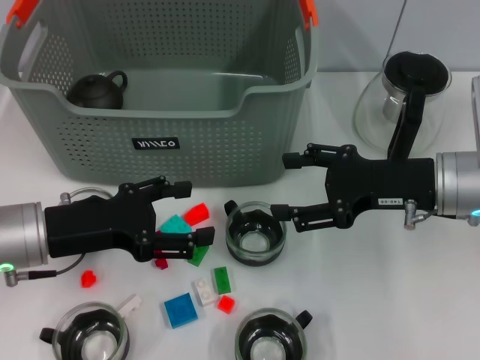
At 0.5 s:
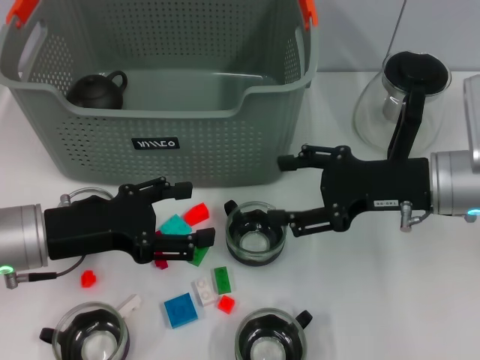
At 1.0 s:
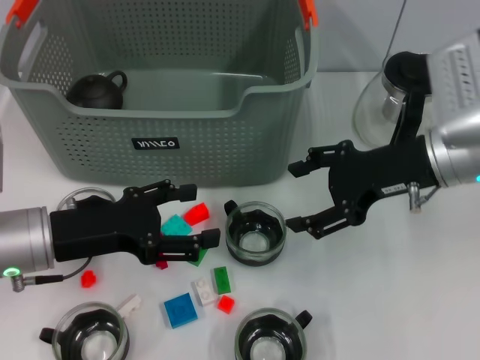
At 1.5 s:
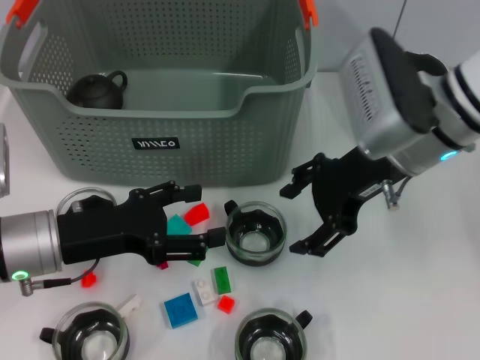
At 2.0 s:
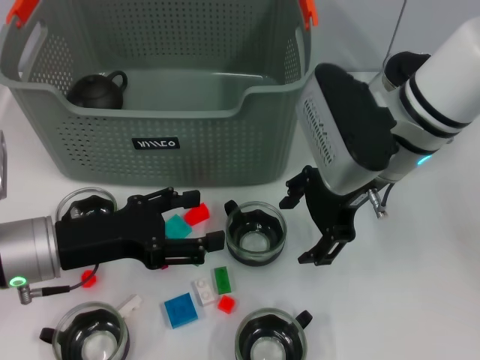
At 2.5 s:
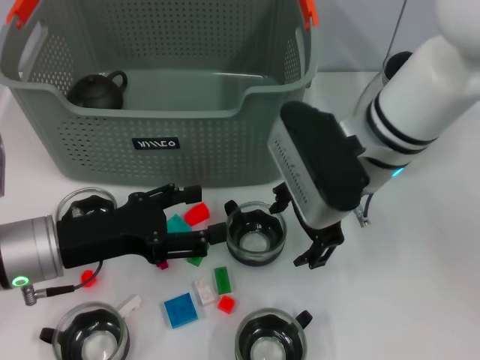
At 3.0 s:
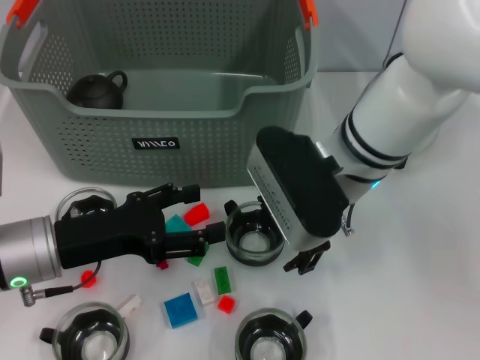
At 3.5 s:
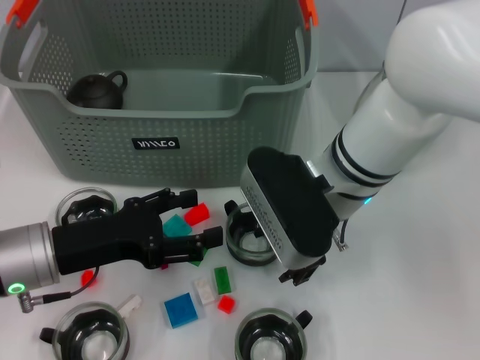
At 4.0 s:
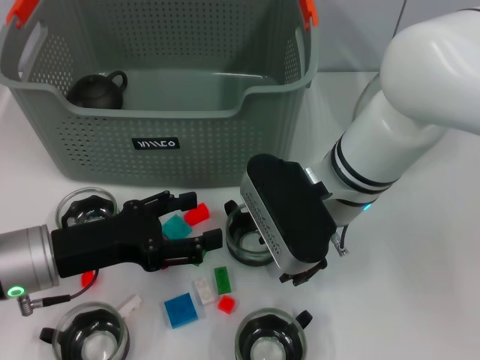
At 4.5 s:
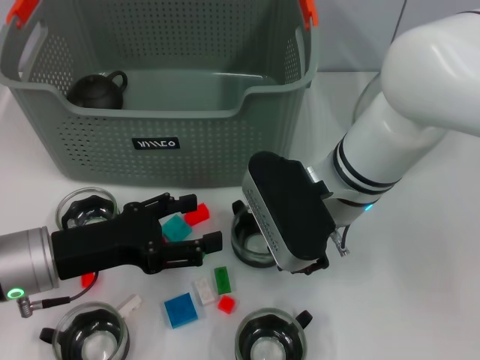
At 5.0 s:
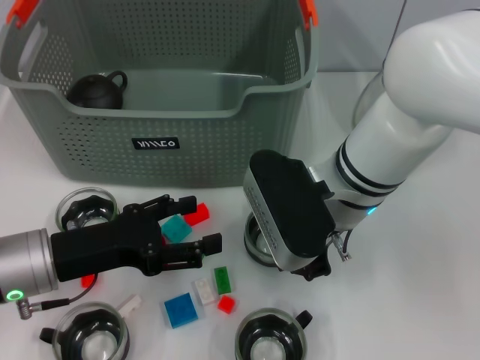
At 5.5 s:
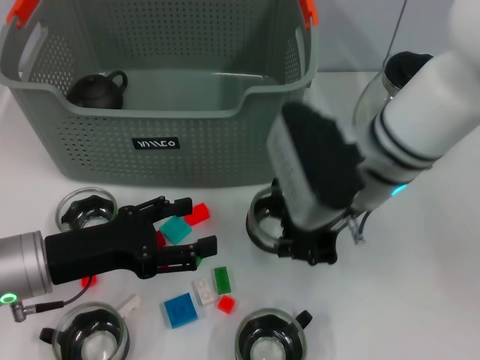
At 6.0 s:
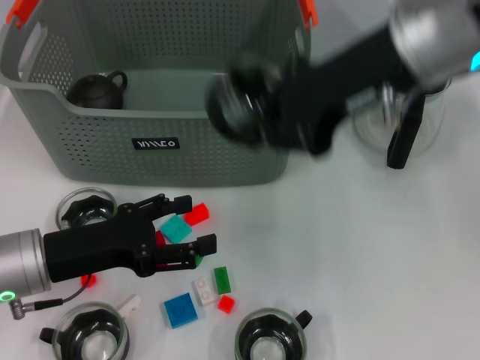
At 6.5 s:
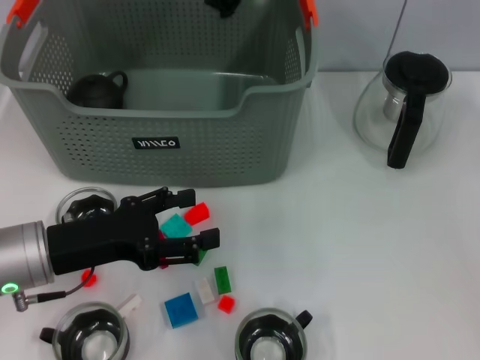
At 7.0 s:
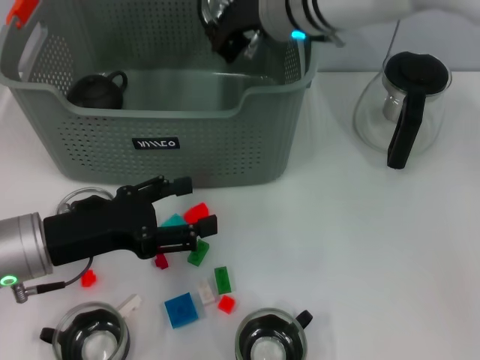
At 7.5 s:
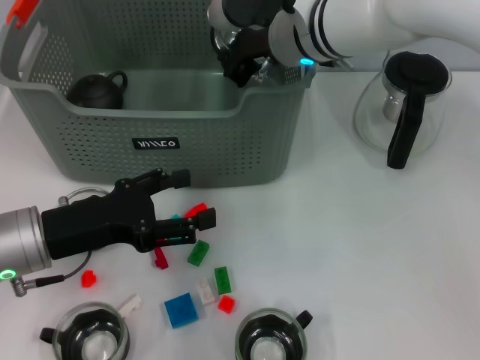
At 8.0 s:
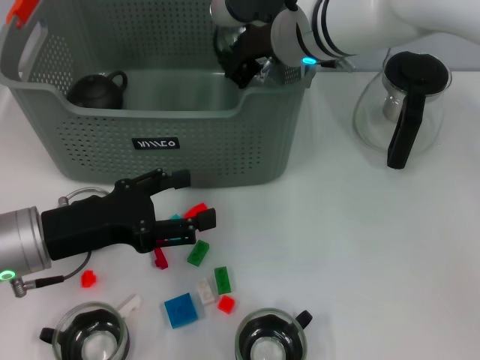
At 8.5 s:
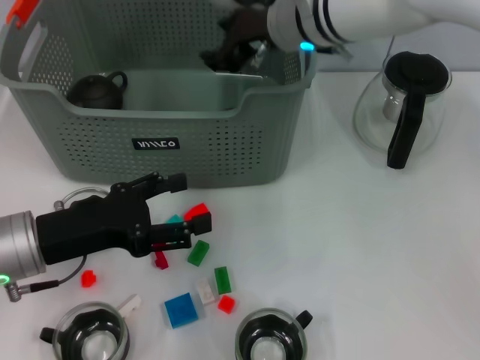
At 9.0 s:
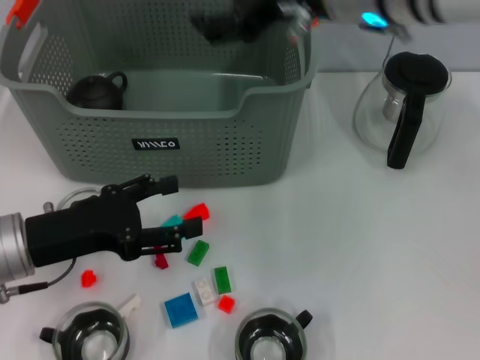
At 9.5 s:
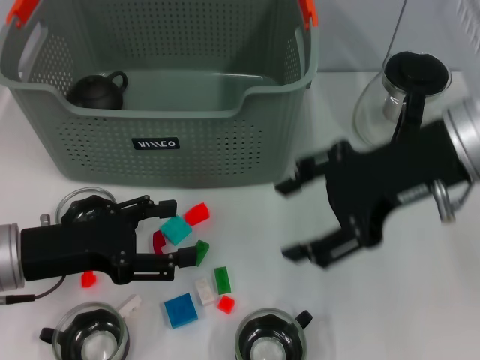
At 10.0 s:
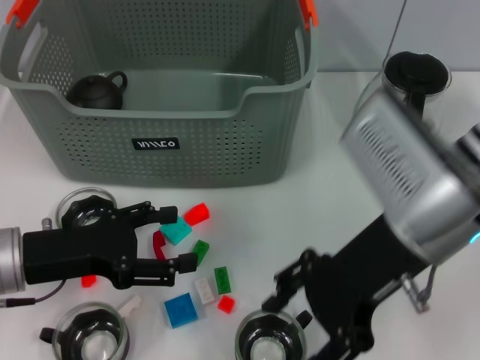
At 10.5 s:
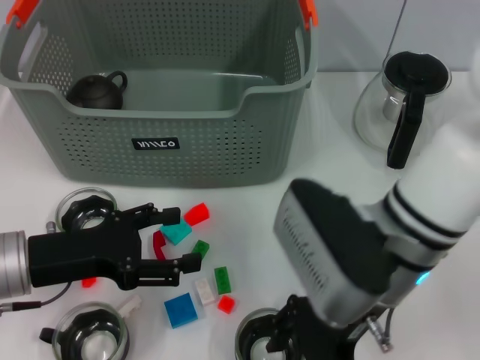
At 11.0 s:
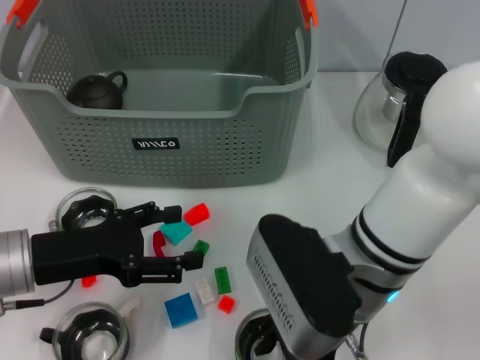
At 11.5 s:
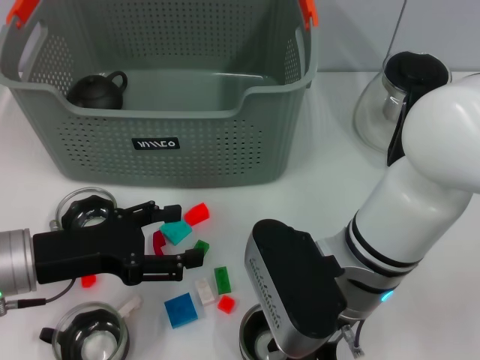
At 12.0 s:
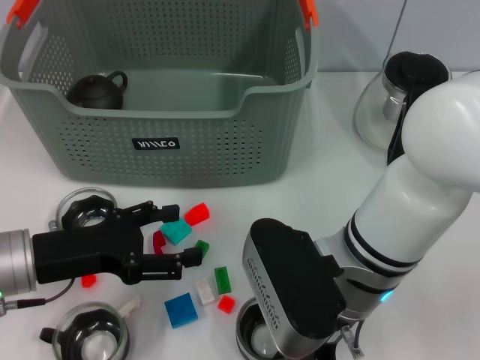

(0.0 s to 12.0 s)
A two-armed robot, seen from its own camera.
Task of the whole recording: pick up the teacup on the table and place it into the storage bin, pick up the block on the table and place it into the storage bin.
Step, 0.0 s - 5.0 s: Grasp the cup with right gripper.
Step, 5.5 s - 8.5 s: Place the cup in the storage box with right gripper.
Step, 9.0 s - 11.5 s: Grasp the cup with right gripper.
0.0 s - 2.0 s: The right gripper goes approximately 10 cm to the left and upward.
2.0 s - 4.0 s: The right gripper ends up some 5 cm from where it was.
4.0 s - 6.0 s: The right gripper heads upward, covering about 15 cm, and closes its fingers.
6.0 s - 8.0 s: The right gripper goes about 15 cm downward, forward and to the left.
8.0 s - 10.0 s: The right gripper travels backward and to the right by some 20 cm, and opens.
10.0 s - 12.0 s: The right gripper goes some 10 cm downward and to the left, and closes up.

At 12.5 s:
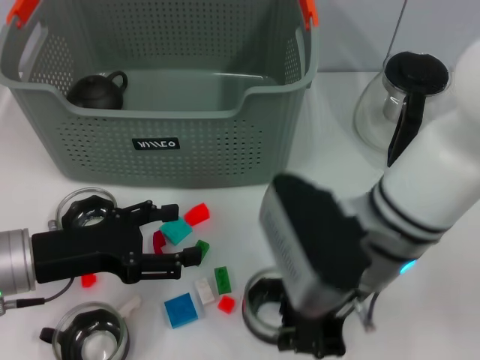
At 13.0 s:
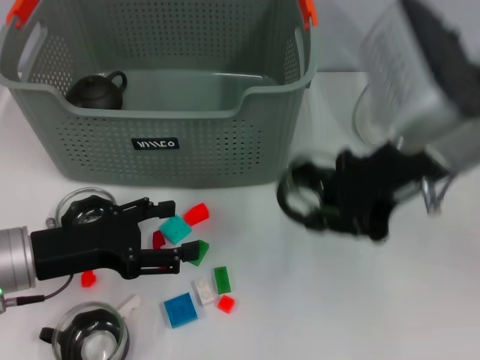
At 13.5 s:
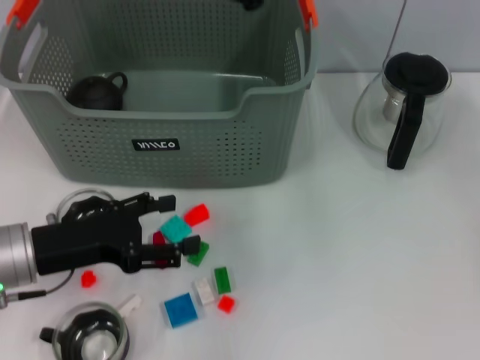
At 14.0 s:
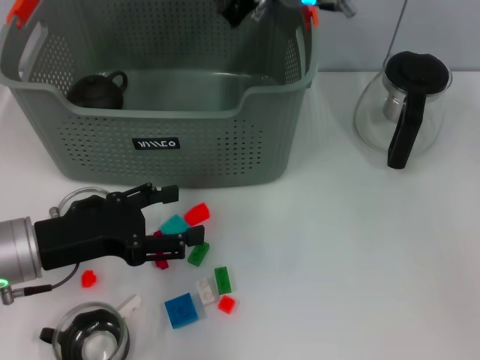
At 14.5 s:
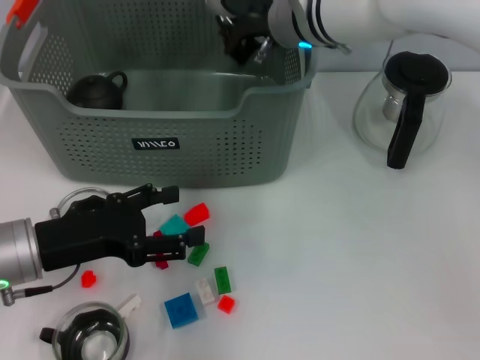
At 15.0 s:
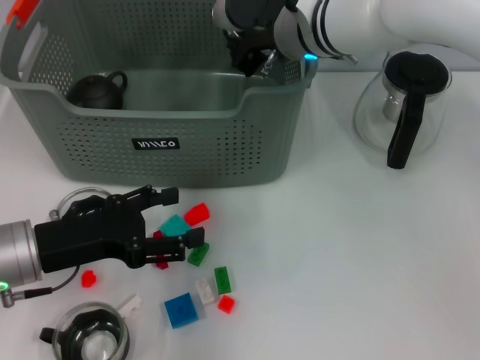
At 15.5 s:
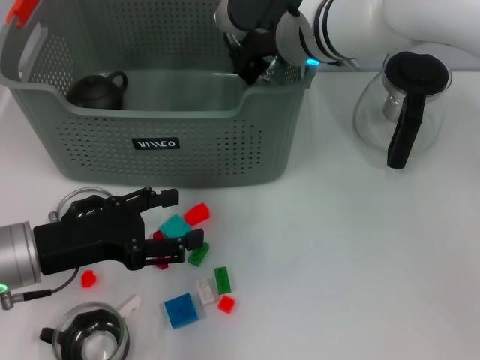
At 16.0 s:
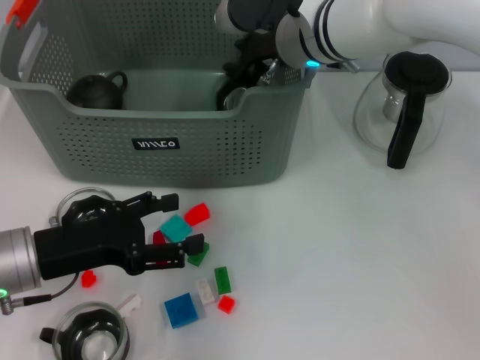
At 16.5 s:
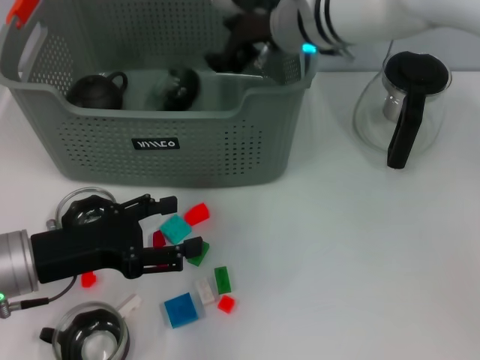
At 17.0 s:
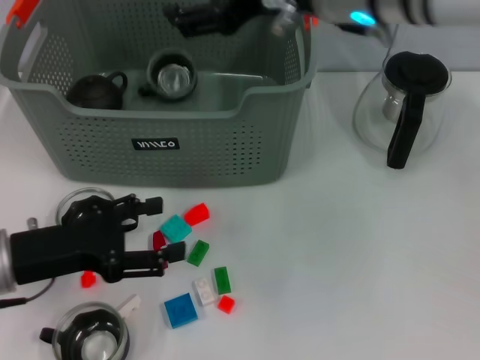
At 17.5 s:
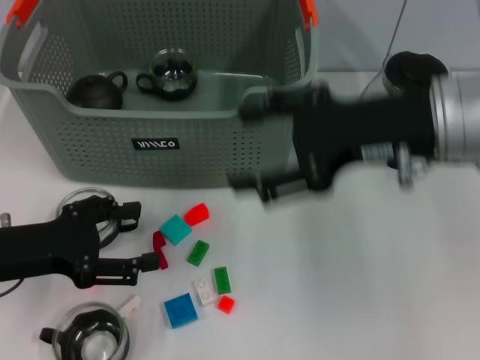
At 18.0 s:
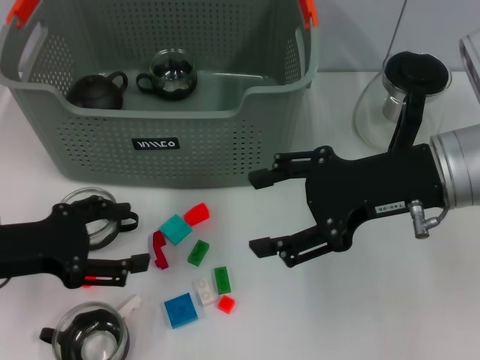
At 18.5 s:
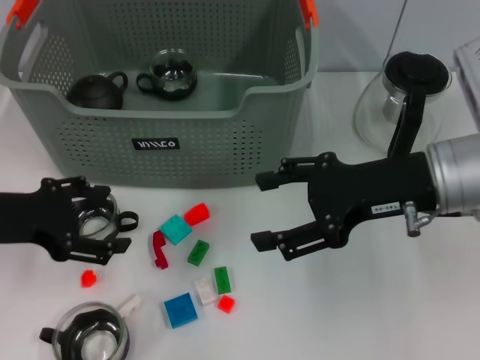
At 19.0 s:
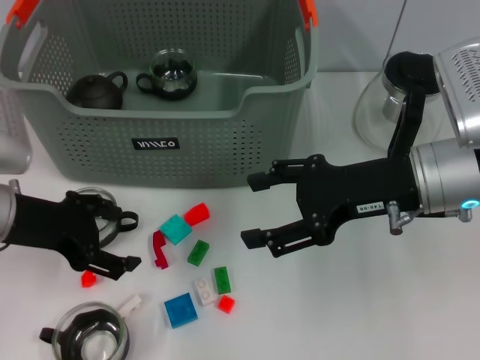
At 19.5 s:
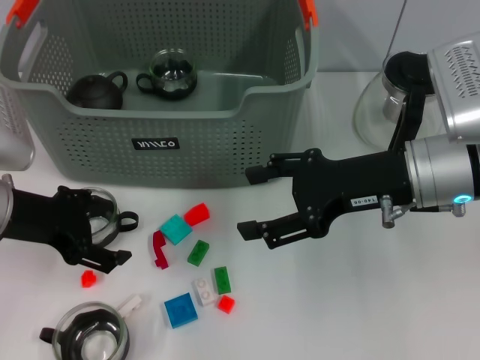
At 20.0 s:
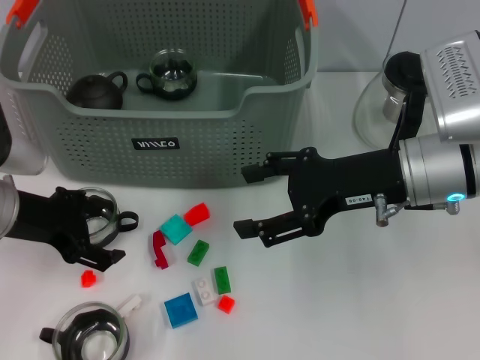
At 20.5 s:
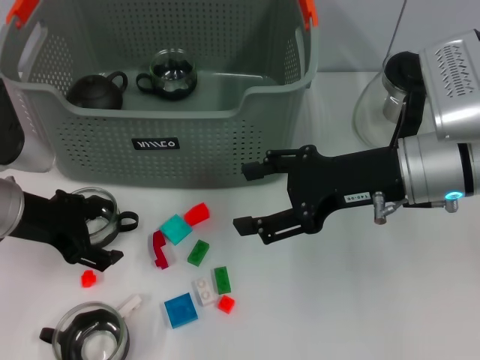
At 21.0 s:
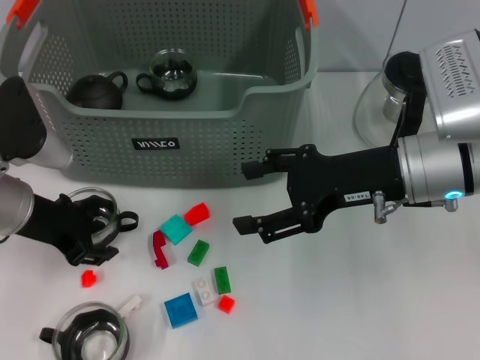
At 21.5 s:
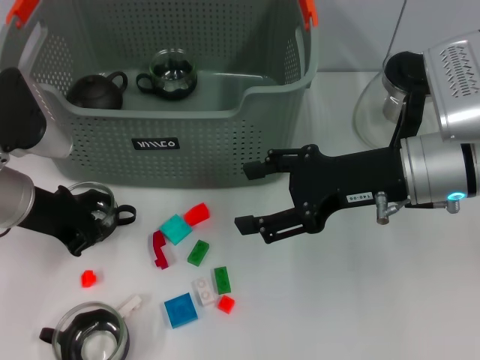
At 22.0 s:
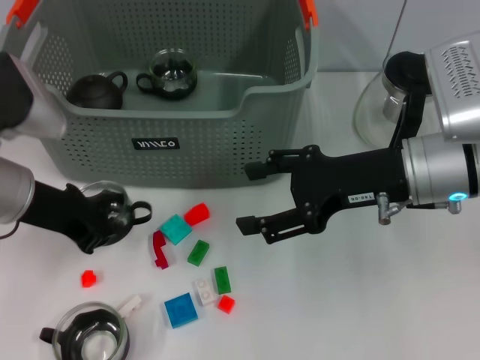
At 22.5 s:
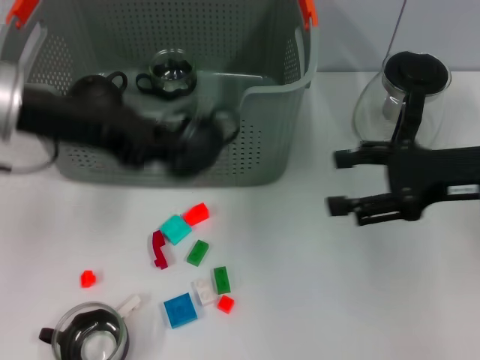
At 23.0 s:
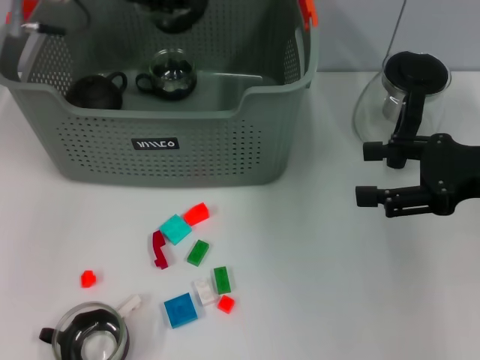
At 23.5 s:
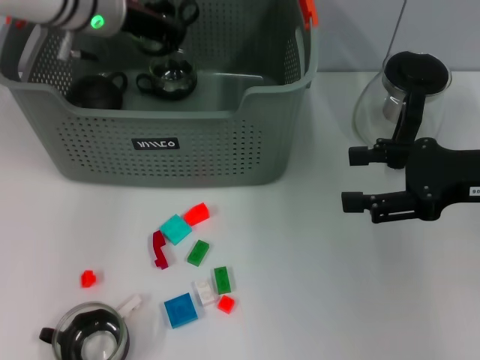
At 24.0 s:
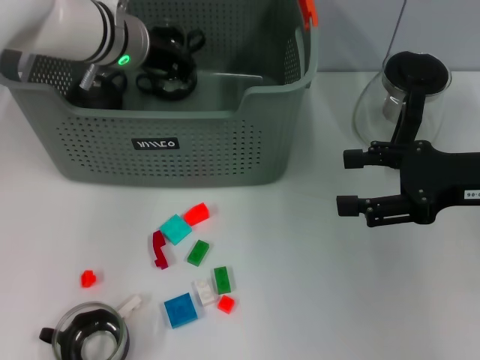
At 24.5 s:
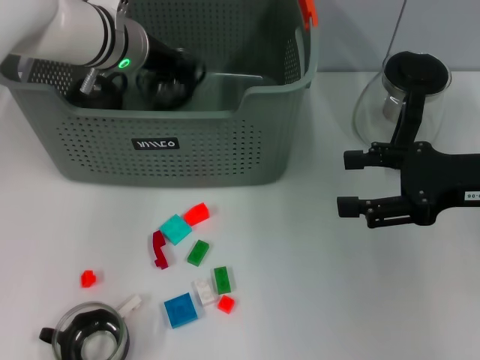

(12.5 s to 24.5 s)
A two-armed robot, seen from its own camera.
Task of the whole recording: pick up the teacup on the table and place it into the storage bin, pick up the block on the table and place it into the storage bin.
Step, 12.5 s - 16.5 s: Place the cup in the storage box with right gripper.
Step, 17.0 s - 21.5 s: Grasp the cup with left gripper.
12.5 s - 14.5 s: The right gripper shifts approximately 20 cm forward.
14.5 s - 16.5 s: The right gripper opens.
16.5 s - 18.5 s: The left gripper goes roughly 5 cm upward, while the right gripper goes some 20 cm backward and to the right, and opens.
18.5 s - 20.5 s: The left gripper changes place by about 5 cm.
20.5 s - 22.5 s: The left gripper travels upward by approximately 10 cm, and closes up. Meanwhile the right gripper is displaced to the right by some 10 cm.
22.5 s - 24.5 s: The left gripper is displaced forward, to the right and downward by roughly 15 cm.

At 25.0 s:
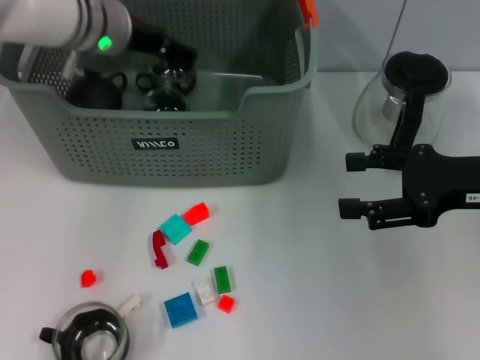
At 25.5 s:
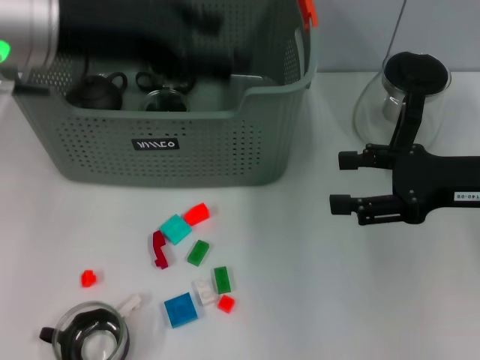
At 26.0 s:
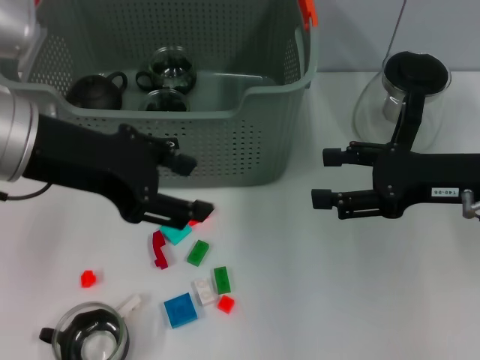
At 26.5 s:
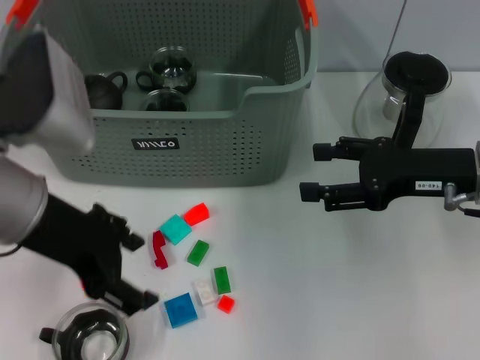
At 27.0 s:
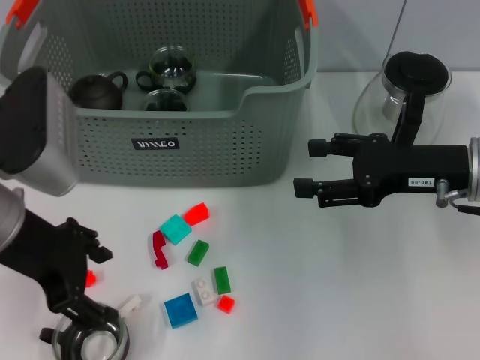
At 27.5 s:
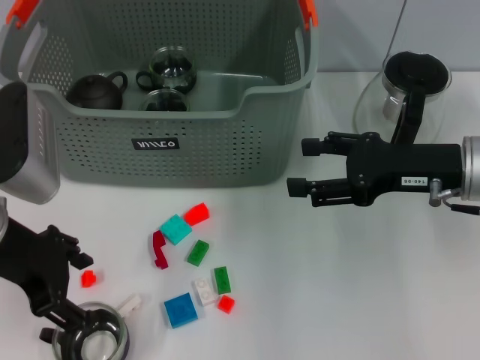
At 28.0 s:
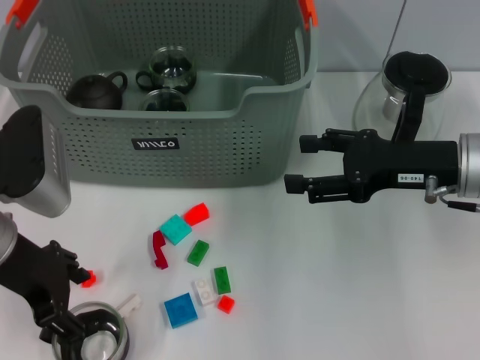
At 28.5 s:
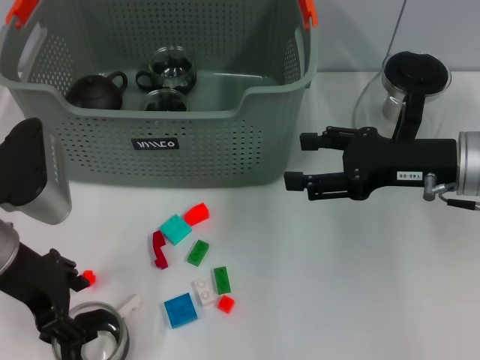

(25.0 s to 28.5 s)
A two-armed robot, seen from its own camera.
Task of the whole recording: pick up the teacup on the table and place it into the storage bin, pick up the block on the table and place it into the storage bin.
25.0 s - 27.0 s: The left gripper goes approximately 20 cm backward.
27.0 s - 28.5 s: The left gripper moves downward, approximately 5 cm.
